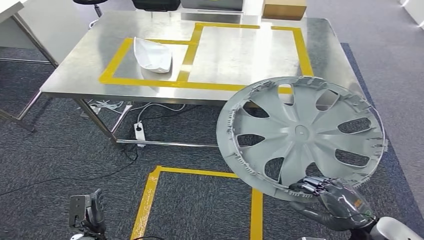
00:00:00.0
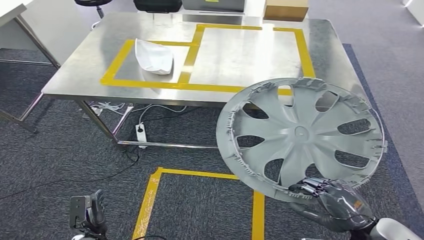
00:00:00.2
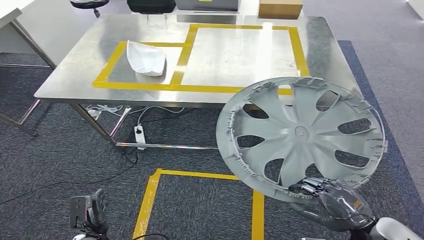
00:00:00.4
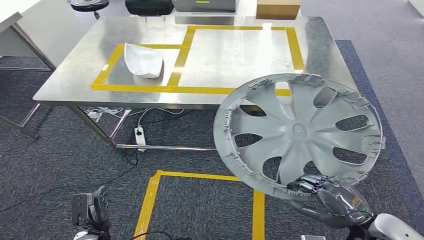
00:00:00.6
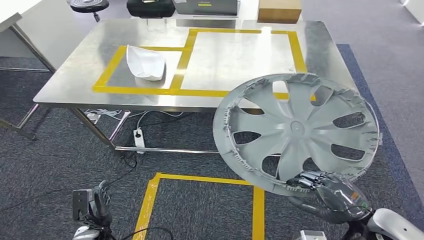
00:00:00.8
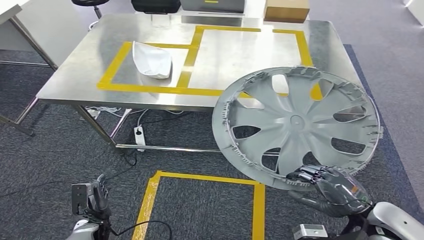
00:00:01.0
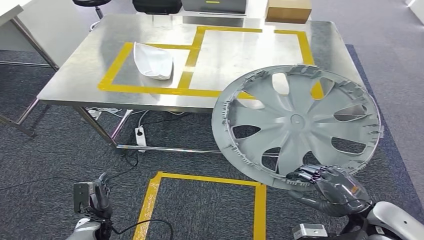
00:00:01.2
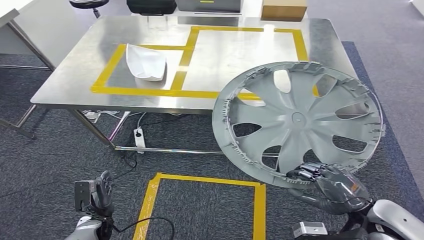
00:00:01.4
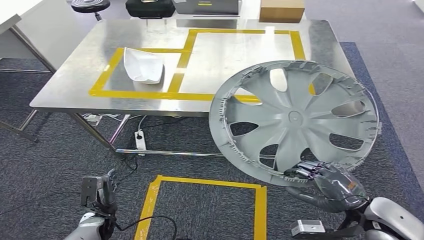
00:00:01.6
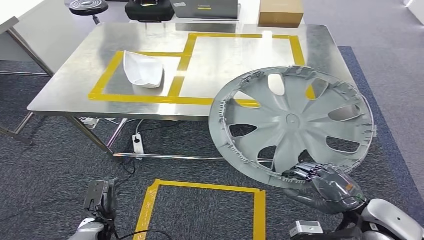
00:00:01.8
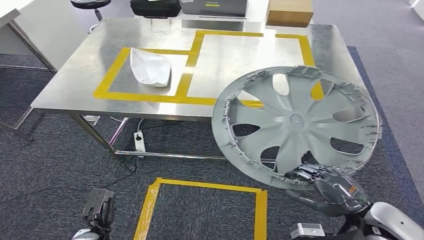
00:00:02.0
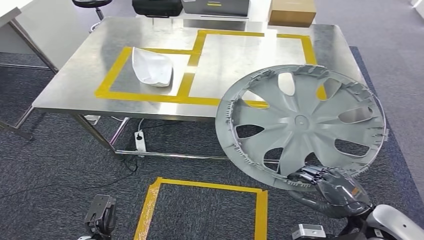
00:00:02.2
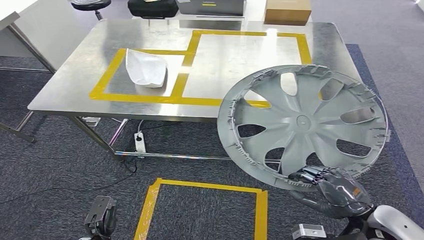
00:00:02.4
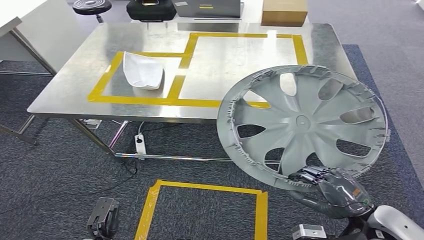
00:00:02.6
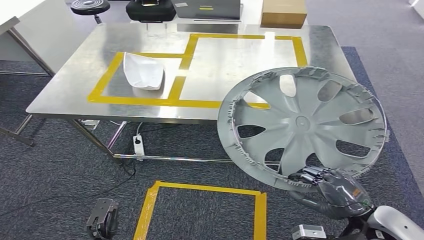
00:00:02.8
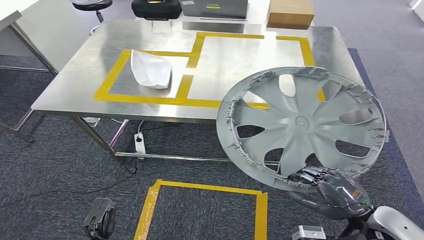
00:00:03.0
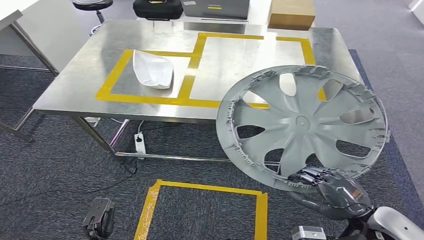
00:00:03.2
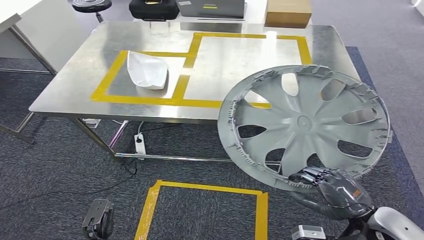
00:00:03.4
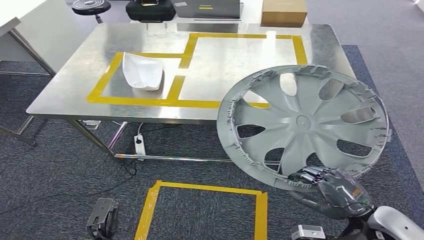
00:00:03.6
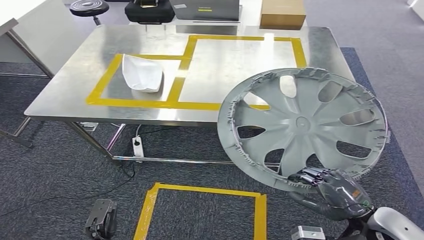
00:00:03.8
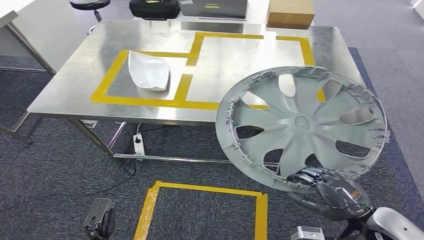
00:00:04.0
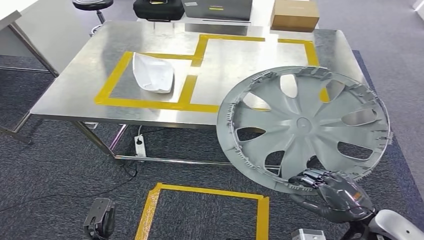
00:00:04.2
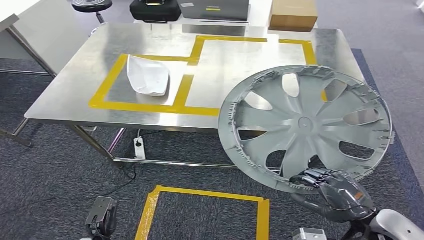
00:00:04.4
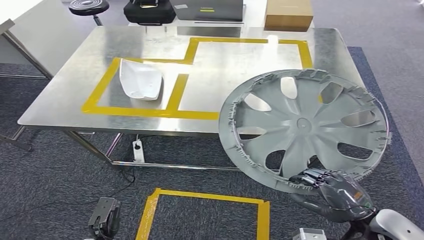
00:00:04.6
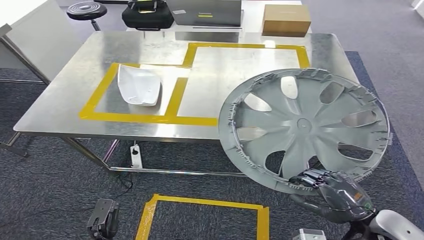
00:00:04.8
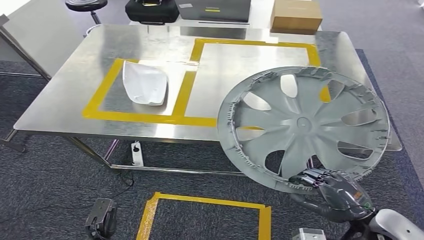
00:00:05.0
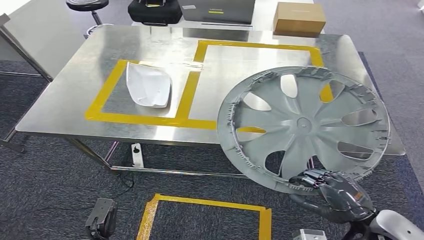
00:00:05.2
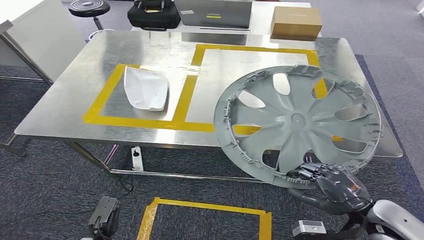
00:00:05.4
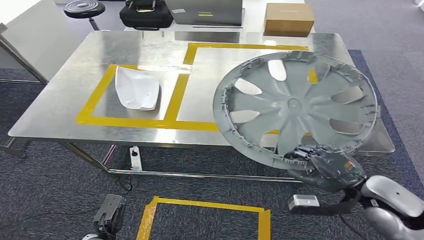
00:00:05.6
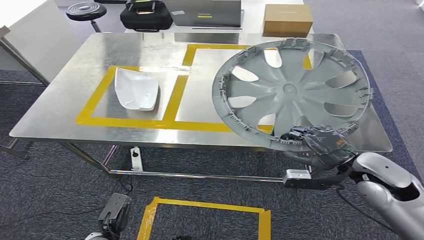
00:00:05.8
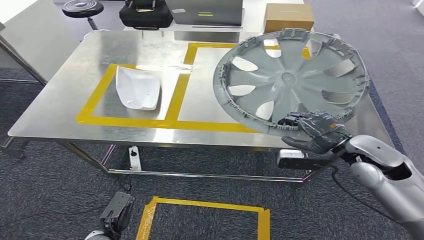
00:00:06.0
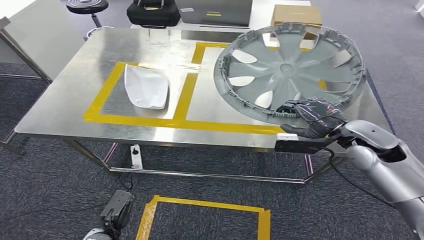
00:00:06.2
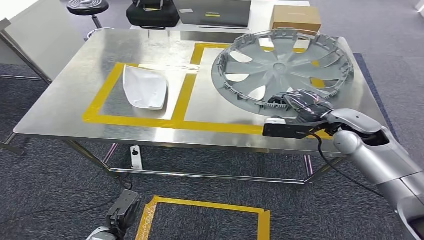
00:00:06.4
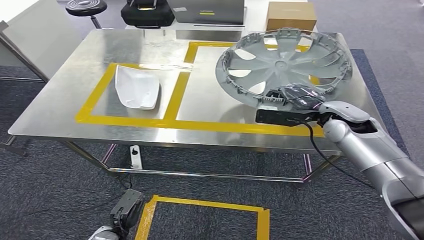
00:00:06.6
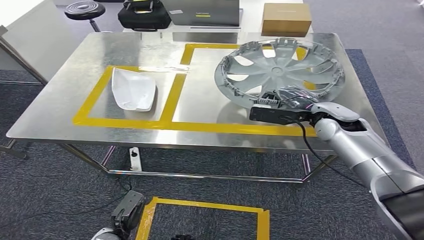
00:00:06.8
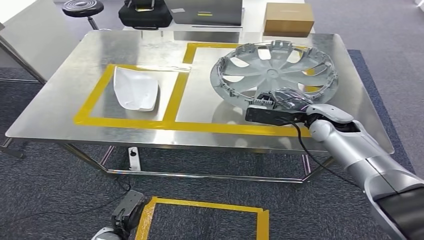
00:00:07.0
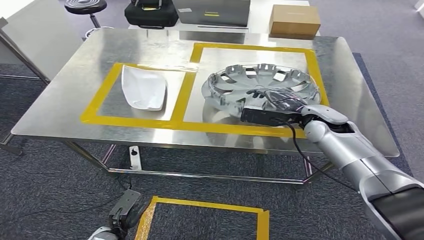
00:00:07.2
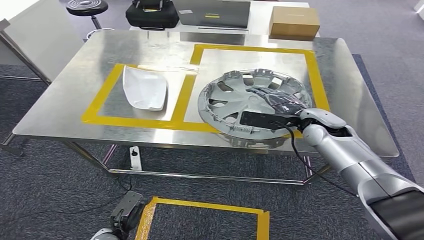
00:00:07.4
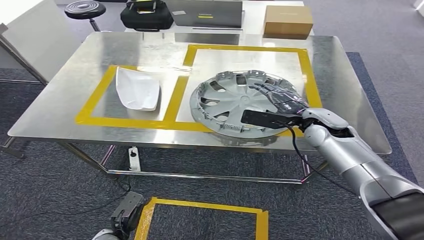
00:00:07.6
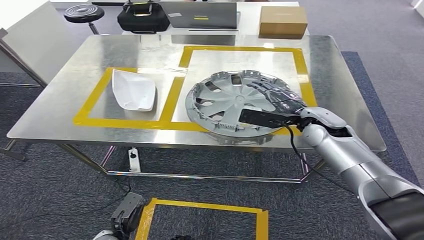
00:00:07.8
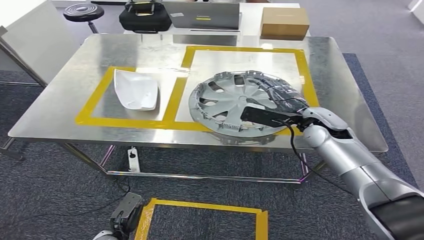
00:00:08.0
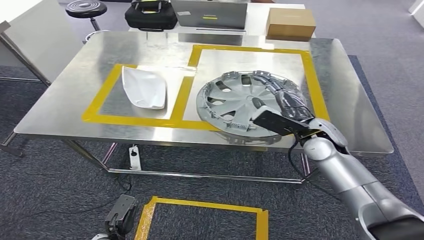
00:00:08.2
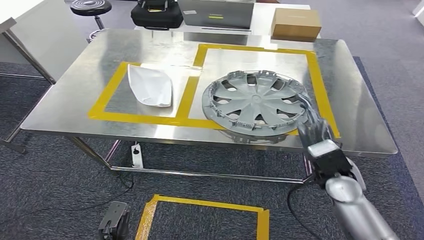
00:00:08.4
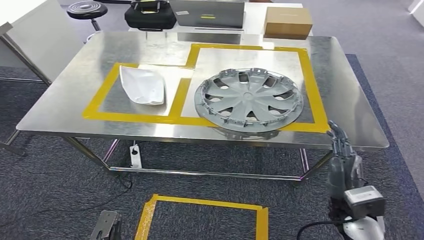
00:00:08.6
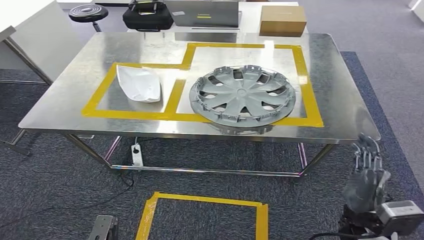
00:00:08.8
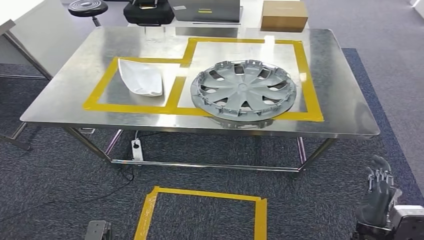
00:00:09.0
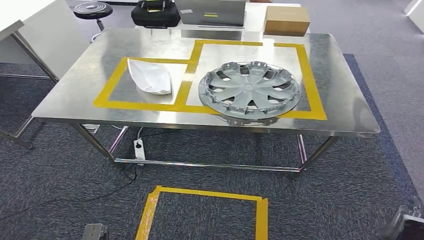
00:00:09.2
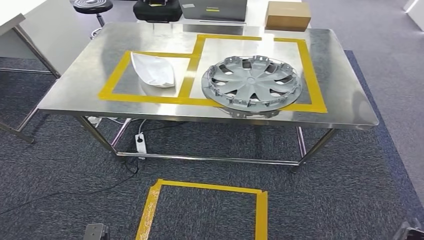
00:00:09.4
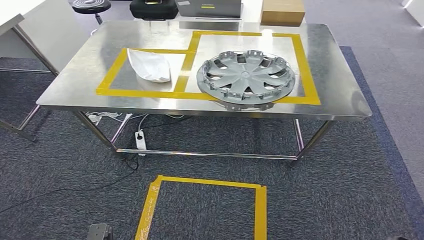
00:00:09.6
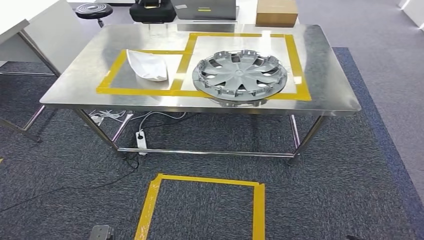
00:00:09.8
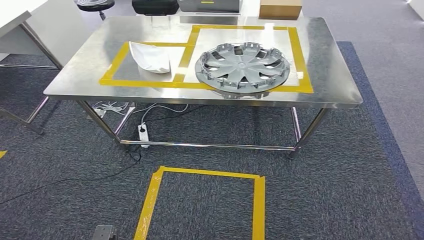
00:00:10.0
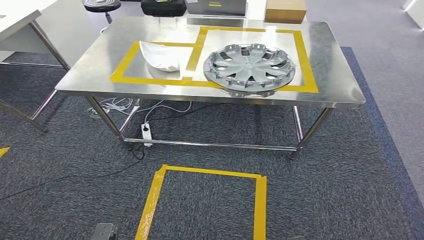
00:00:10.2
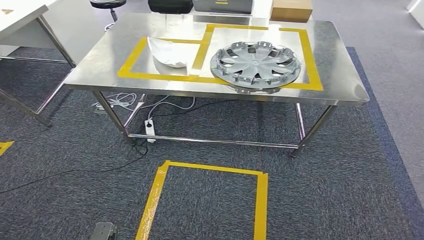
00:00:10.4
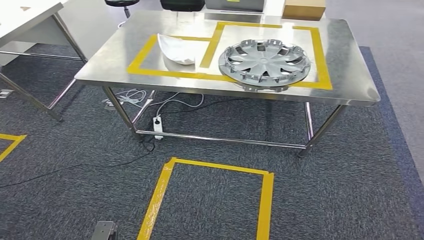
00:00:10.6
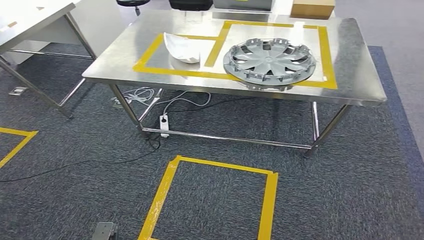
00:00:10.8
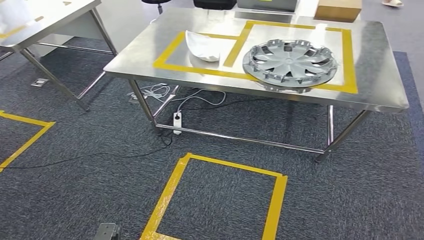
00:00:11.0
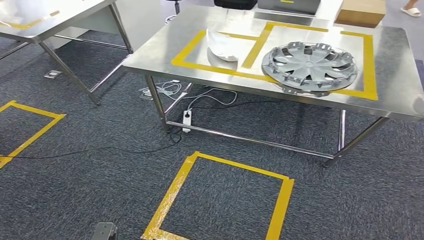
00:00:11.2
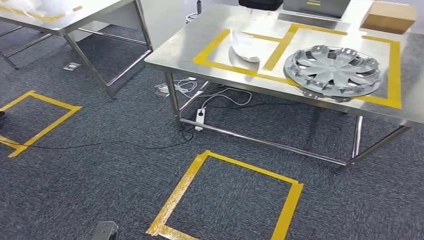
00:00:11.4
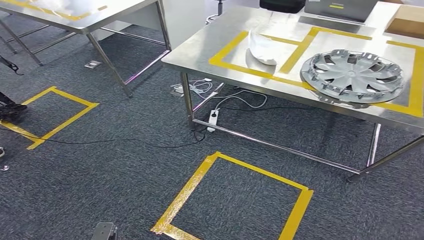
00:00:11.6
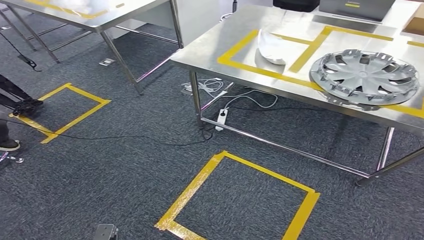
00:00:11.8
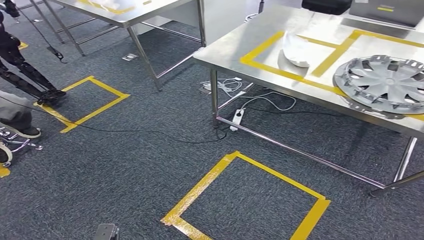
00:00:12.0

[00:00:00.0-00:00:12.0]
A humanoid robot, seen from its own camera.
Step, 00:00:00.0 to 00:00:06.2: Move the small parts to the workbench.
Step, 00:00:06.4 to 00:00:10.4: Insert the small parts into the corresponding slots on the workbench.
00:00:03.0 to 00:00:04.4: The two hands keep their place.

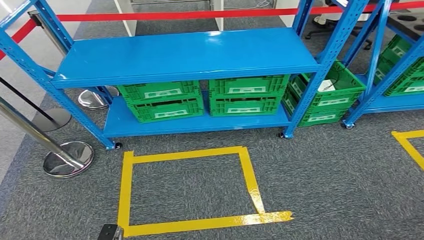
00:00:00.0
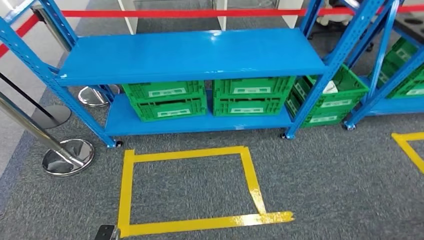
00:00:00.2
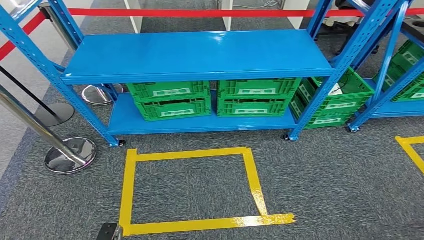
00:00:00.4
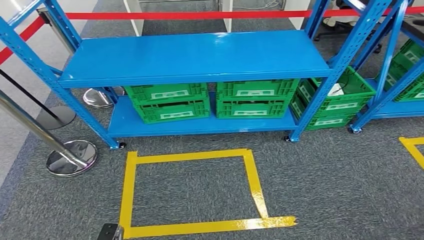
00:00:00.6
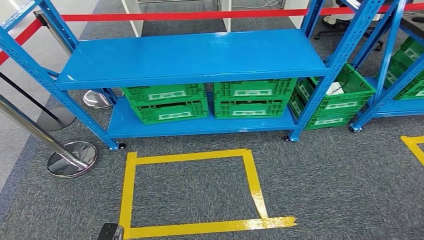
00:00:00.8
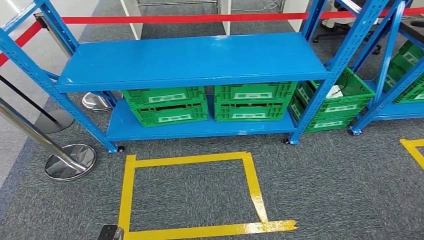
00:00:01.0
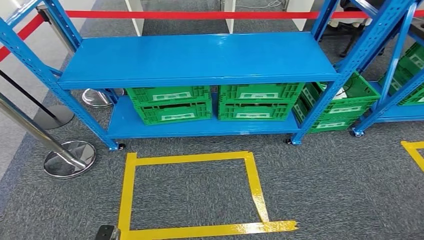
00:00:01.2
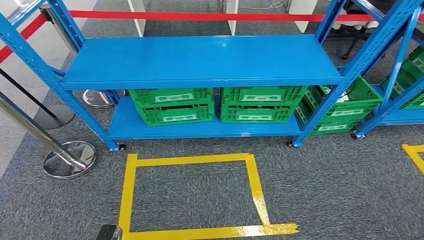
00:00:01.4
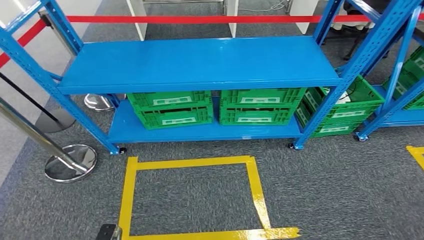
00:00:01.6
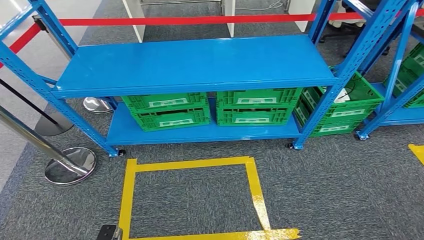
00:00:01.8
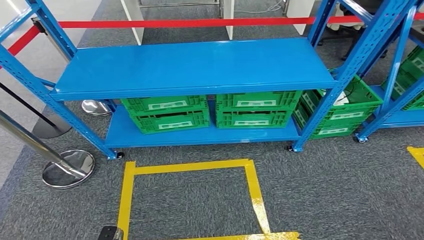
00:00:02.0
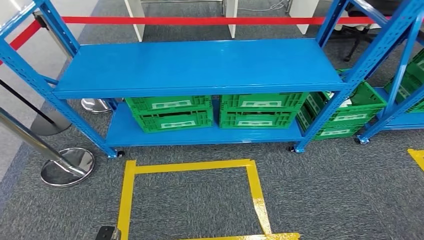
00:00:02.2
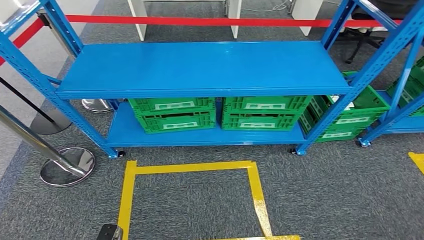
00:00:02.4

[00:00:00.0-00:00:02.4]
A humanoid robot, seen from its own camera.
Step, 00:00:00.0 to 00:00:02.4: Return to the initial position at the workbench.
